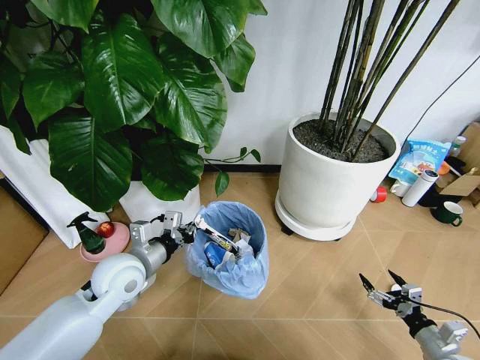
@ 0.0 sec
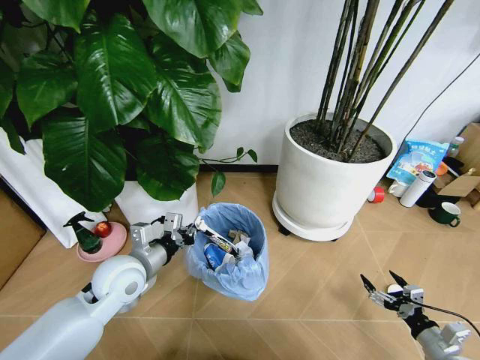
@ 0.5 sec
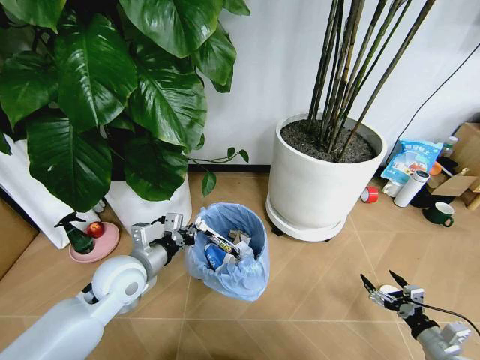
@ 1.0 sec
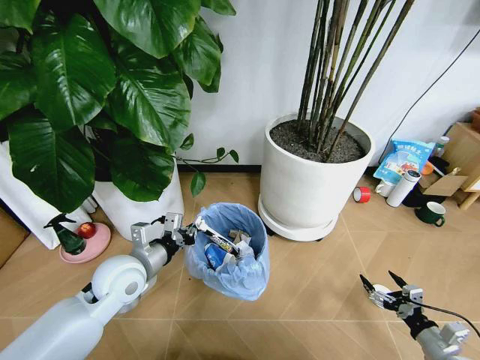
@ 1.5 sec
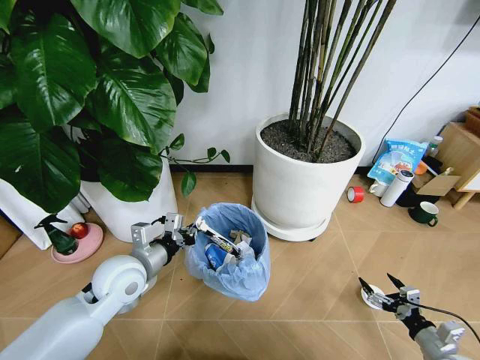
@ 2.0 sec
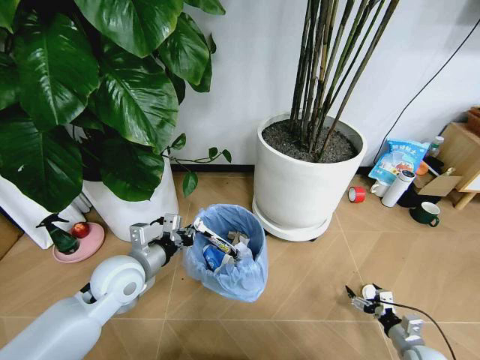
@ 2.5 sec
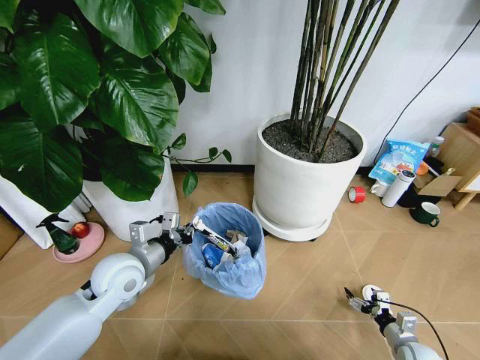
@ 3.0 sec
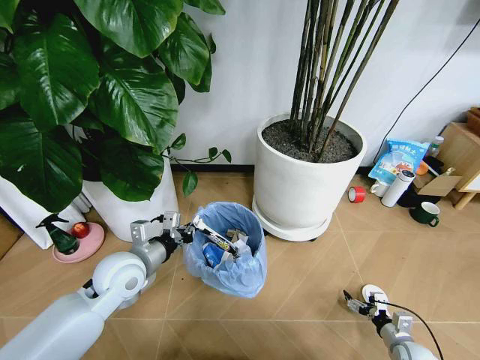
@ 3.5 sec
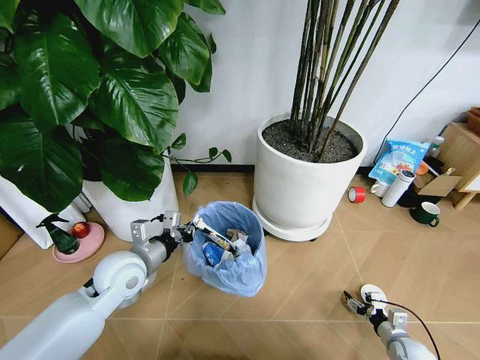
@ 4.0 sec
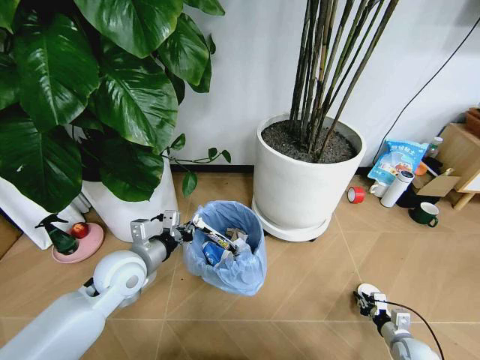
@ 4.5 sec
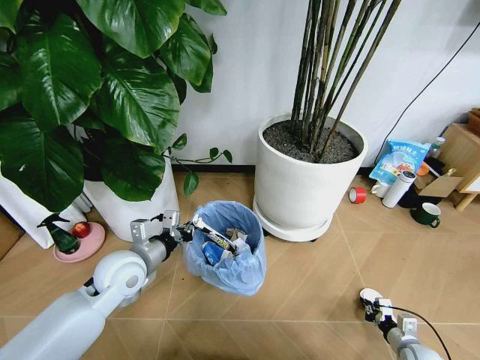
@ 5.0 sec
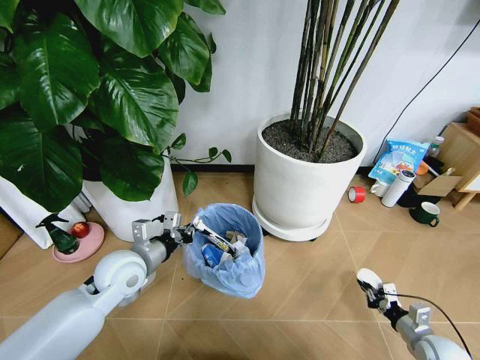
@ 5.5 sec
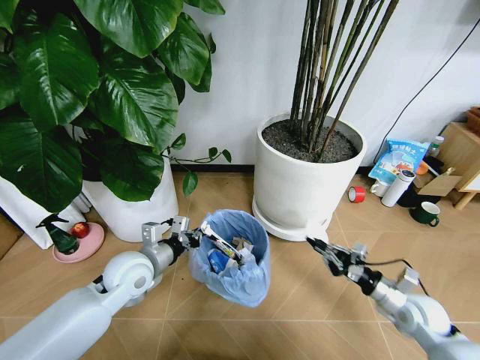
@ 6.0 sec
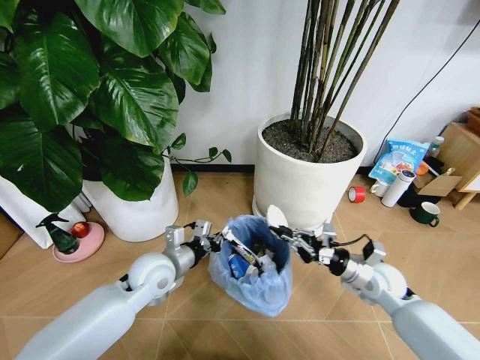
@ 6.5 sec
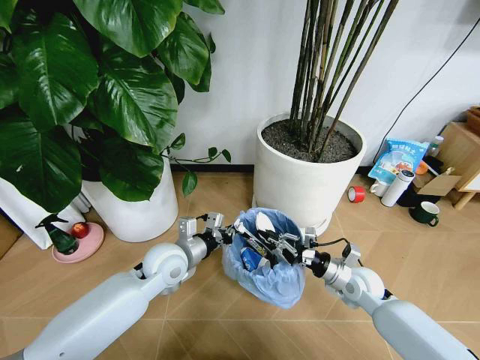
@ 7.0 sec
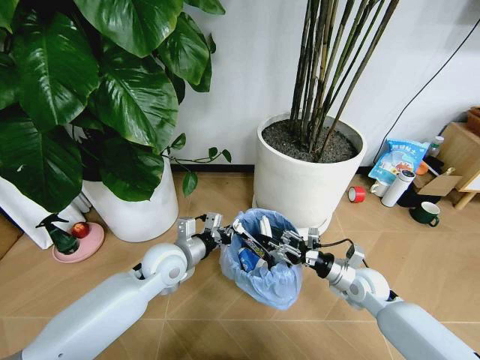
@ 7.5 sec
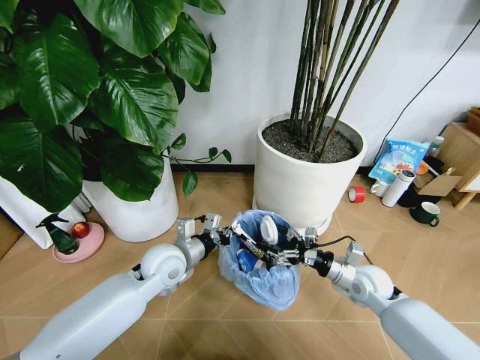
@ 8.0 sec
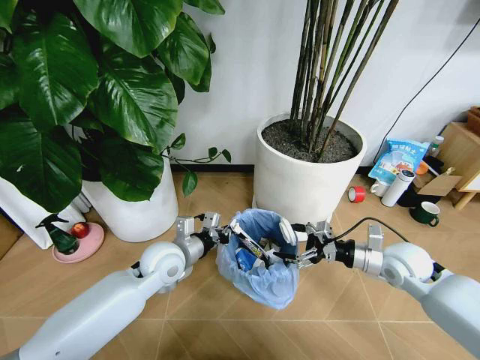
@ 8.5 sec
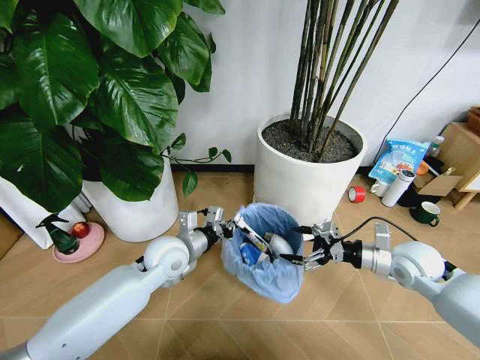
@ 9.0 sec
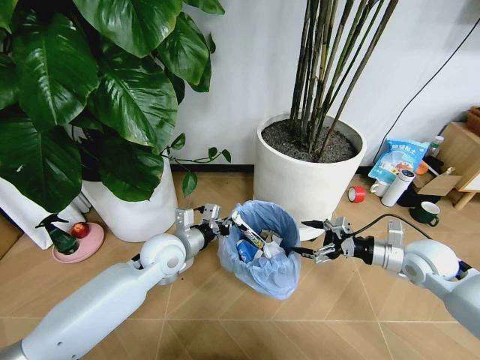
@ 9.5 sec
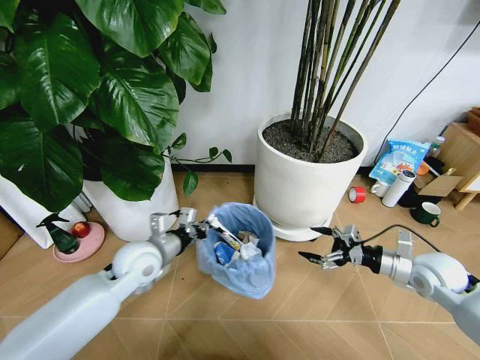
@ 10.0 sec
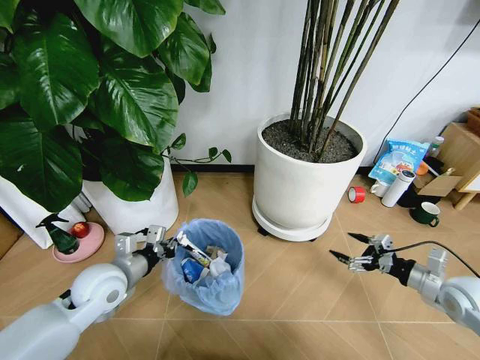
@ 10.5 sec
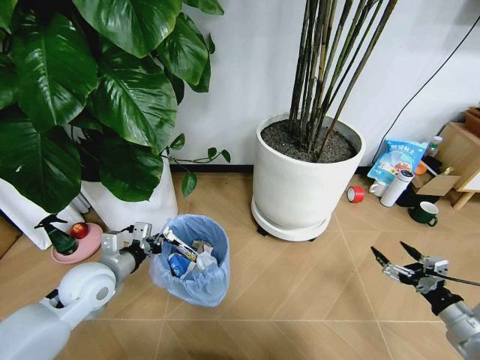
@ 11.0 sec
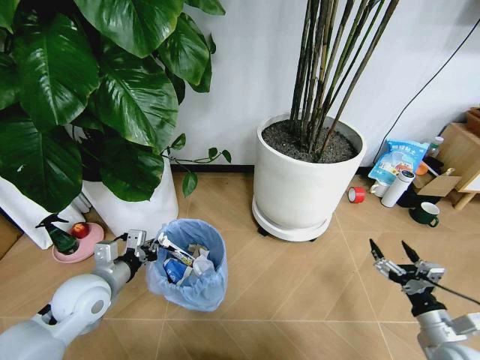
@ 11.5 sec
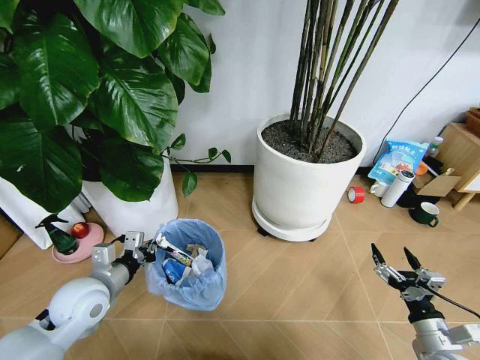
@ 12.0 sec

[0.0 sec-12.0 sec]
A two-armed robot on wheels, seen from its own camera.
Task of the whole recording: Pick up the trash bin and place the garbage on the floor into it.
2.0 sec to 4.0 sec: The right gripper shifts about 15 cm downward and forward.
4.0 sec to 6.0 sec: The right gripper shifts some 20 cm upward, and closes up.
6.0 sec to 8.0 sec: The left gripper goes some 5 cm to the right. Meanwhile the right gripper goes roughly 10 cm to the left and forward, and opens.
8.0 sec to 10.0 sec: The left gripper ends up some 5 cm from where it was. The right gripper heads to the right and upward, covering roughly 15 cm.
10.0 sec to 12.0 sec: The right gripper shifts about 20 cm backward and downward. Meanwhile the left gripper goes about 10 cm to the left and backward.

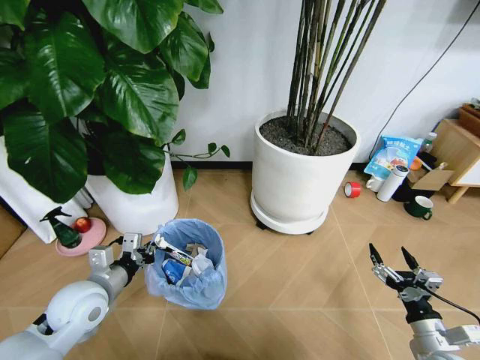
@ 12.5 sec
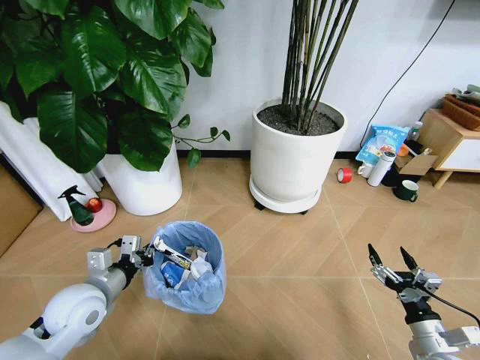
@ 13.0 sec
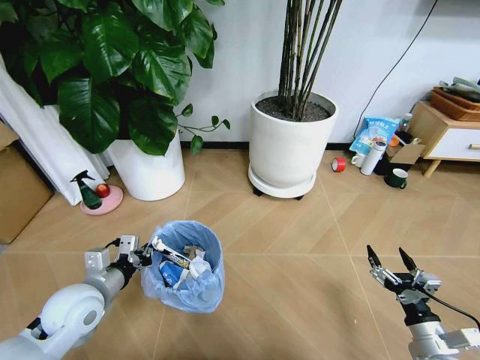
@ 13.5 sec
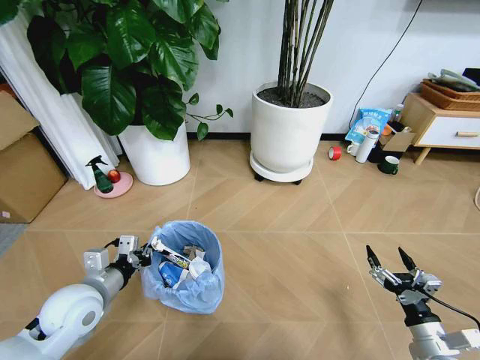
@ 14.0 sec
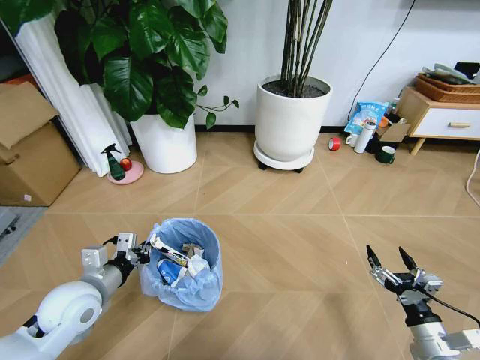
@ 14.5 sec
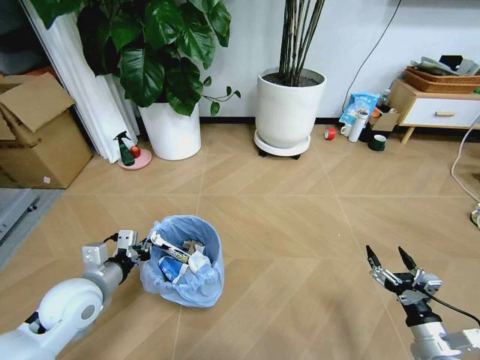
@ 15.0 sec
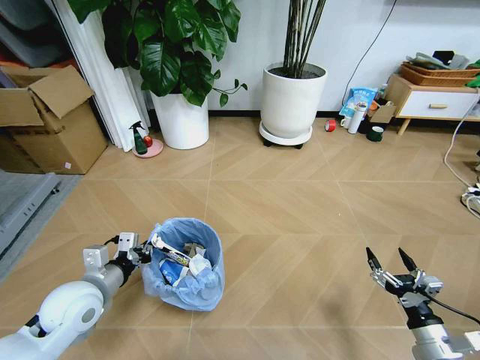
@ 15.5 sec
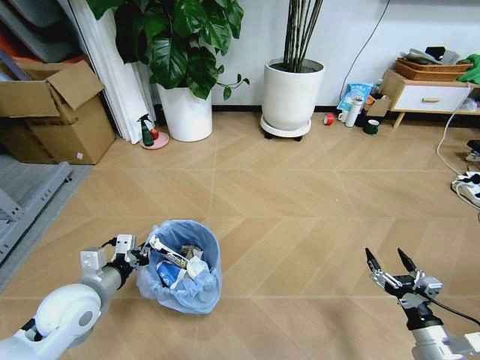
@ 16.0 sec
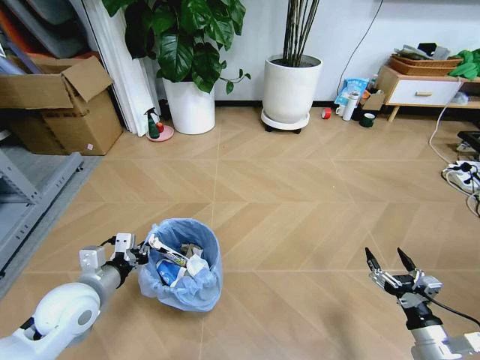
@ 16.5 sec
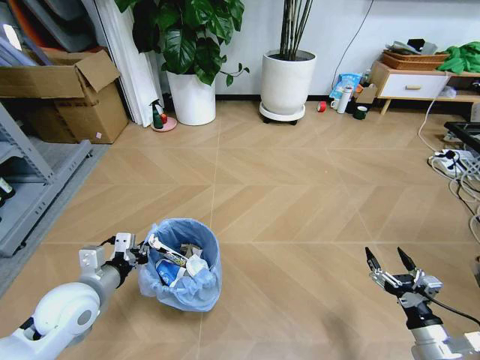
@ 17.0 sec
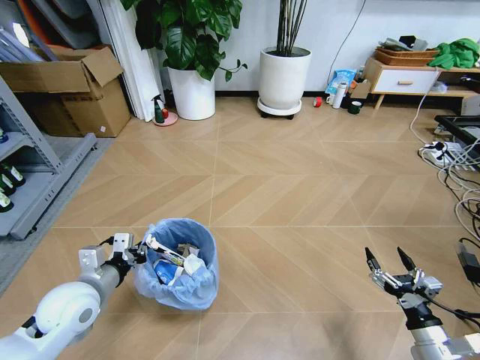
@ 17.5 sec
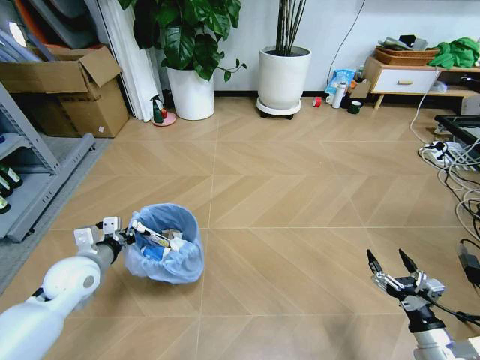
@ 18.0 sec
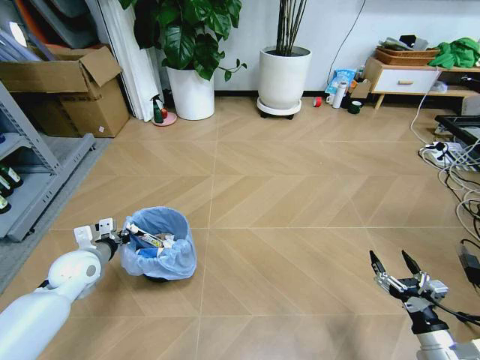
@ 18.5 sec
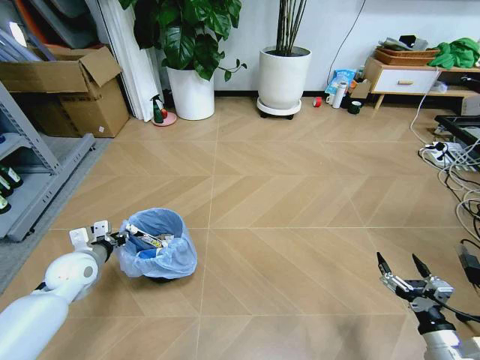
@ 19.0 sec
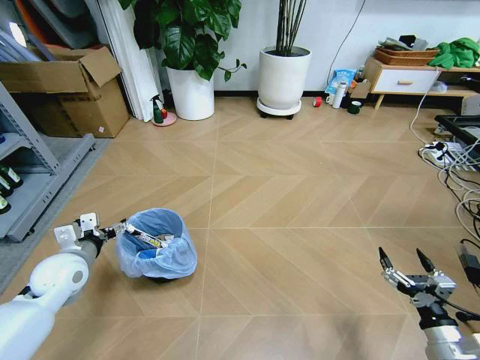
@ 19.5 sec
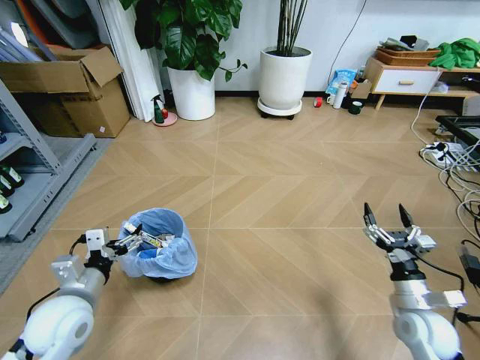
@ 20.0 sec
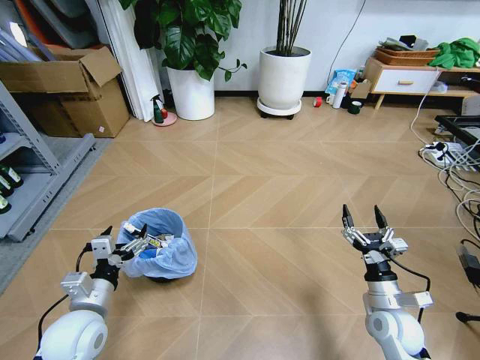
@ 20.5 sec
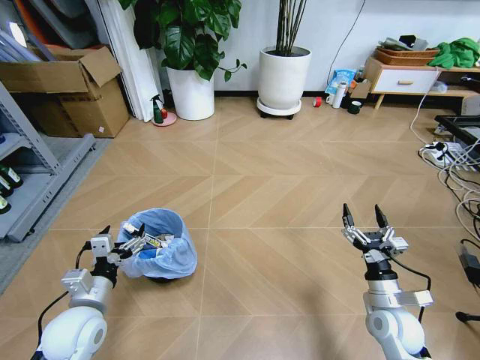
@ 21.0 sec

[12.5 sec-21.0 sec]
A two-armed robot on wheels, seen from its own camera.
Task of the whole recording: Pick up the trash bin and place the garbage on the floor into it.
16.5 sec to 19.0 sec: The left gripper heads forward, to the left and downward, covering some 15 cm, and opens.
19.0 sec to 21.0 sec: The left gripper heads backward and to the right, covering some 15 cm, and opens its fingers, while the right gripper travels forward and to the left by some 15 cm.
